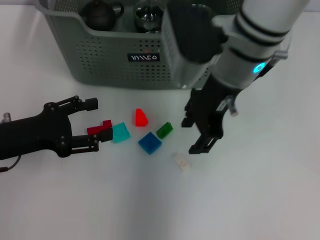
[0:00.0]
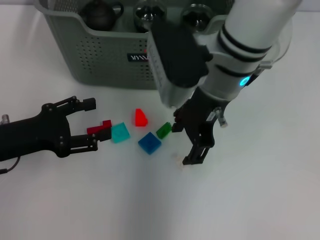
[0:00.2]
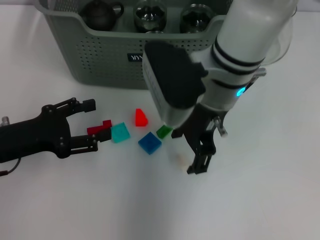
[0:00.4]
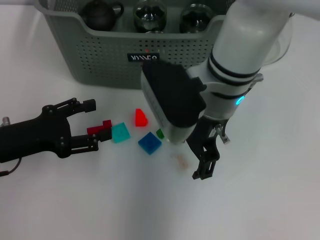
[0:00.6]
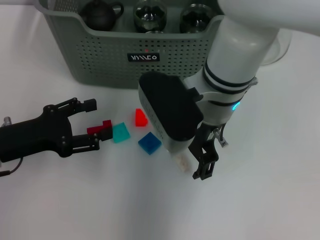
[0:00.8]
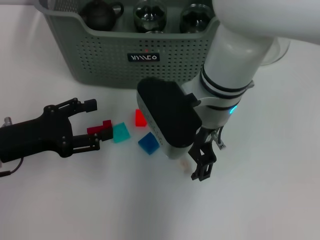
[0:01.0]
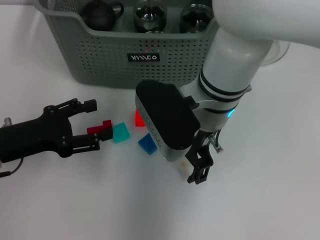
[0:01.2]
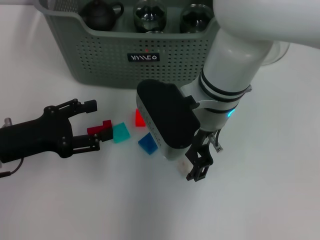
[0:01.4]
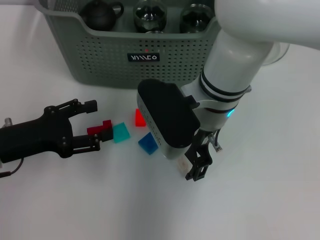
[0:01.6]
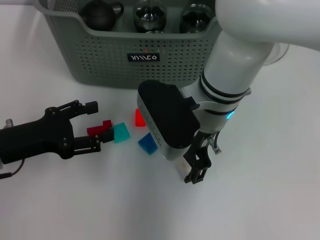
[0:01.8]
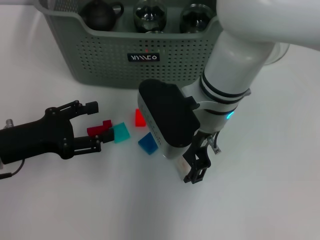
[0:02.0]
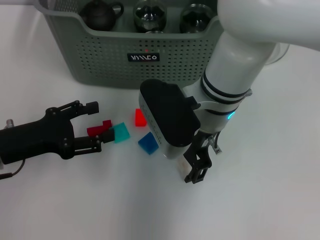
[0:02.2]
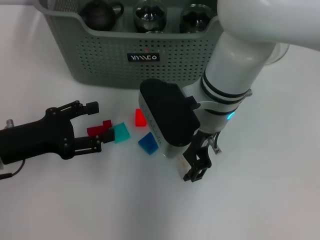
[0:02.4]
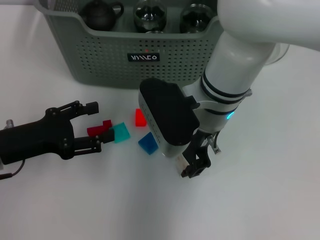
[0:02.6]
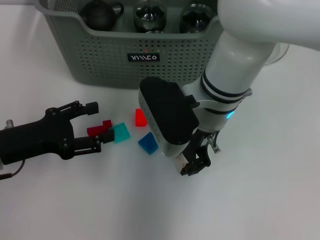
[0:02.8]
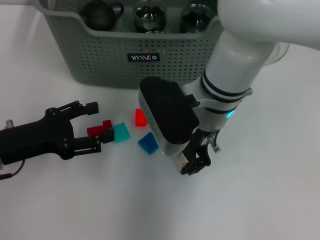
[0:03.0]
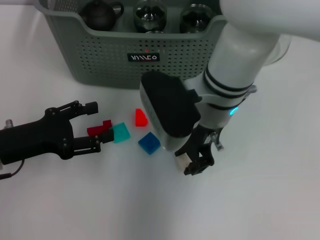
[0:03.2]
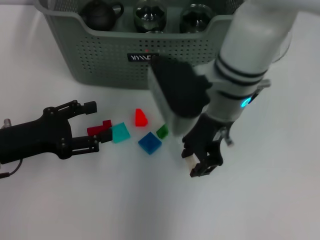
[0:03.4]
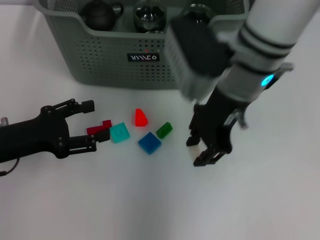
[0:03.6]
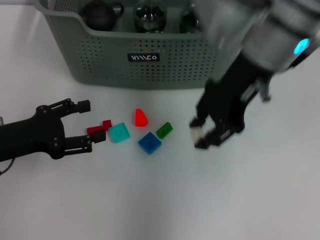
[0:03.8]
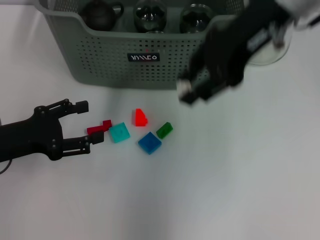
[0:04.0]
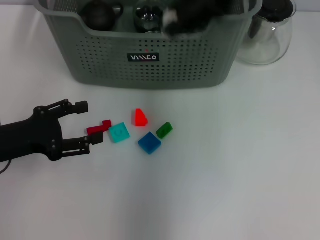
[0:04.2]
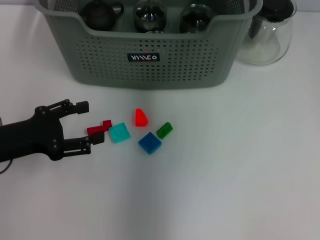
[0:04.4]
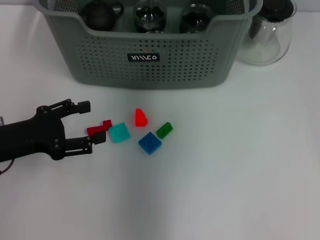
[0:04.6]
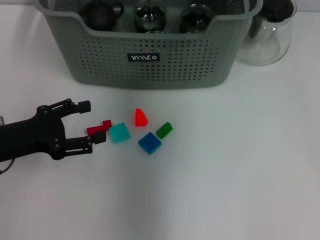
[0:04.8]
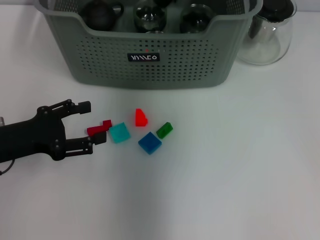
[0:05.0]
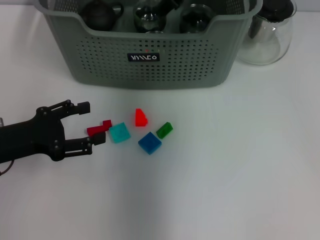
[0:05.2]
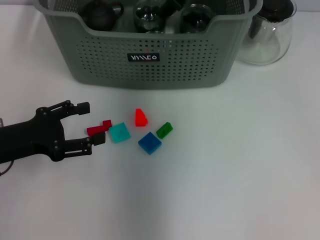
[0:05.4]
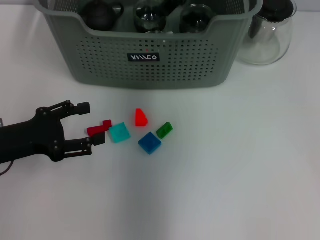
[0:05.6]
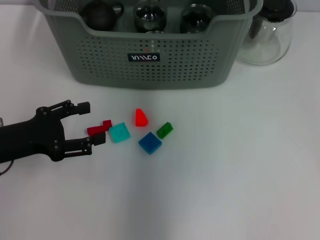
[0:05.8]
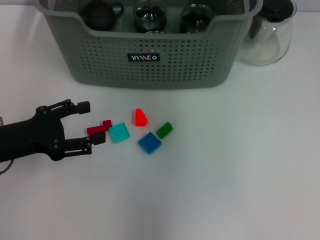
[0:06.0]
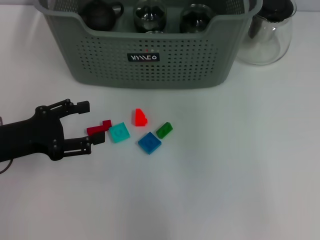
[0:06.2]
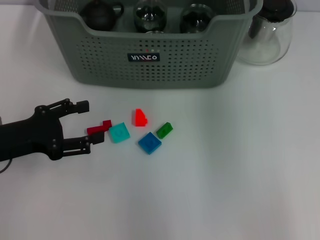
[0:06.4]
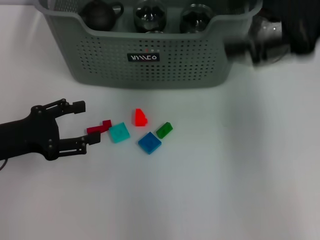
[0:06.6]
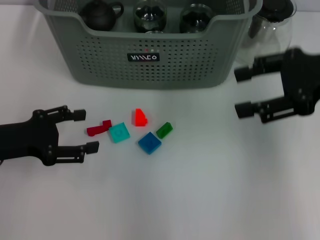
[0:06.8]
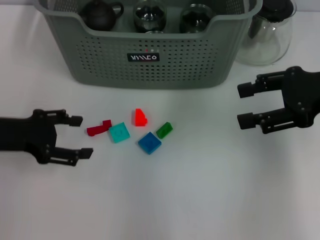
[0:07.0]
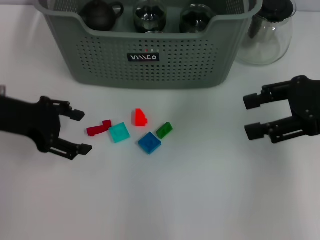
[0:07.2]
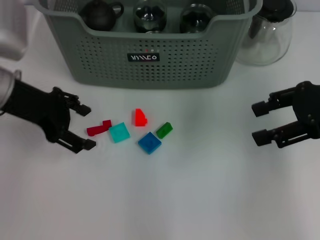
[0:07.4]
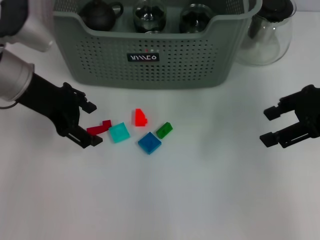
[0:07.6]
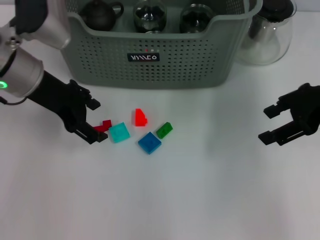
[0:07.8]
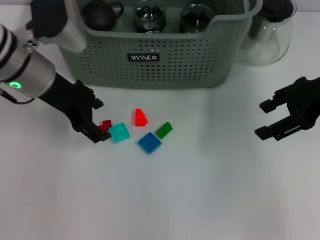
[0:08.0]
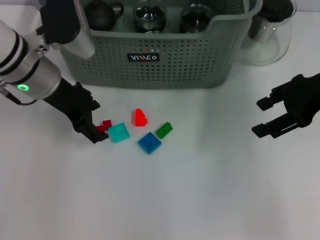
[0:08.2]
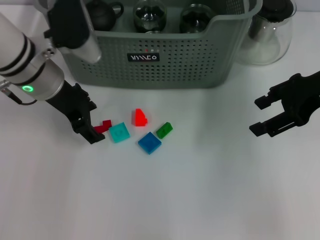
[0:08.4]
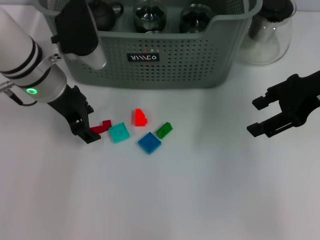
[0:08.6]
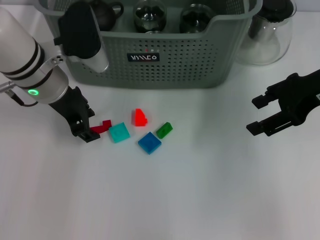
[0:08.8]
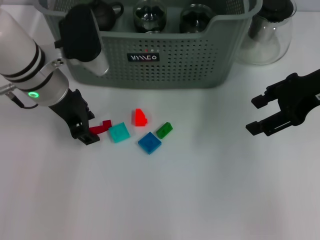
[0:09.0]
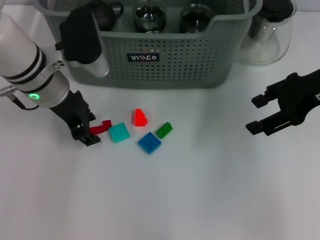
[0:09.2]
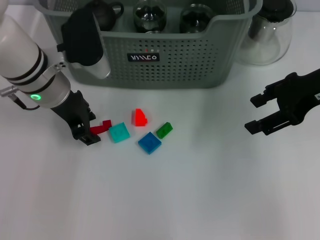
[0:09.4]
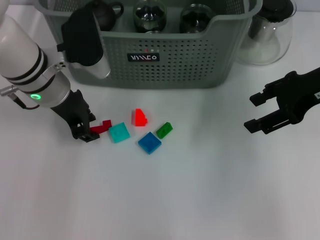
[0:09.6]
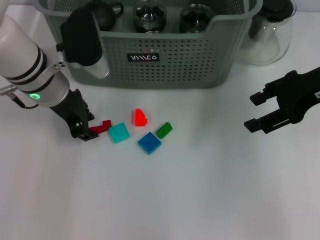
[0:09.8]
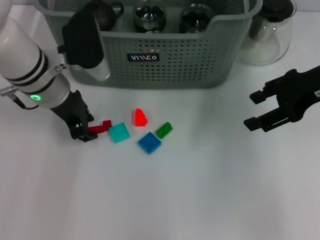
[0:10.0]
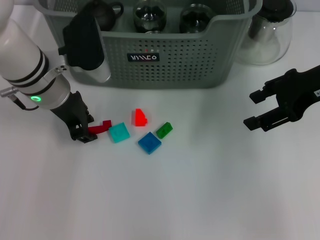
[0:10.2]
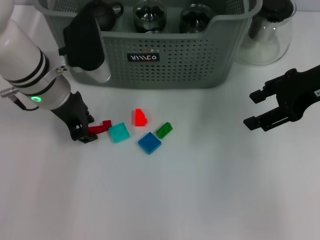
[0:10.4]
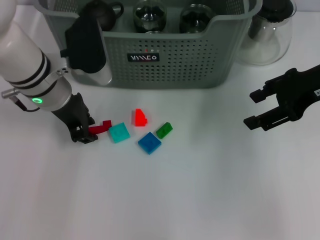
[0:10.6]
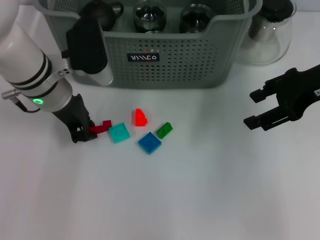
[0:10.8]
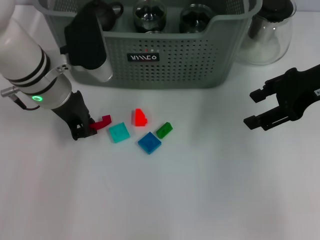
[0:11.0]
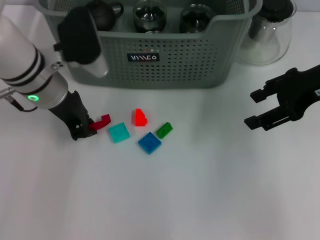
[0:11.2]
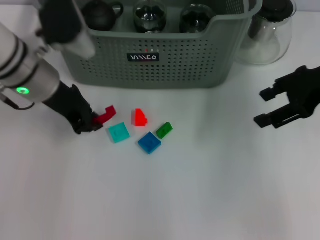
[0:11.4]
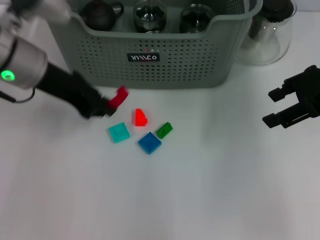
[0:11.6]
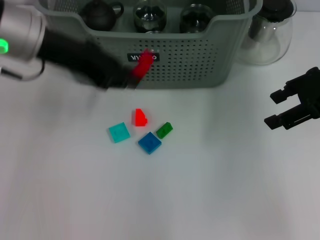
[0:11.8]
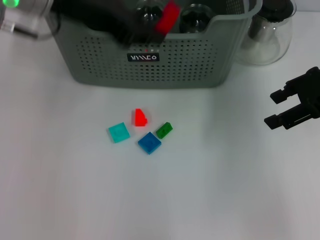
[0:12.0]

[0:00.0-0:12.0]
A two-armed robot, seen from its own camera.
Task of the whole recording: pick up the teacup on the table and place it into the storage bin, pick up the block on the table and place it into the storage bin.
Step, 0:00.0 to 0:02.8: Grasp the white block with right gripper.
Step, 0:03.0 to 0:05.4: Place the white block in the storage box with right gripper.
Step, 0:05.6 to 0:10.8: Grasp the red block with left gripper.
0:00.0 to 0:01.6: The right gripper goes some 5 cm downward.
0:01.6 to 0:03.0: The right gripper closes its fingers.
0:03.0 to 0:04.4: The right gripper travels upward by approximately 25 cm.
0:06.0 to 0:07.6: The right gripper travels to the right, downward and backward by about 25 cm, while the left gripper shifts approximately 15 cm forward, upward and to the right.
0:07.6 to 0:09.0: The left gripper changes place by roughly 5 cm.
0:09.0 to 0:10.4: Neither gripper changes place.
0:10.4 to 0:12.0: The left gripper travels upward by about 15 cm.

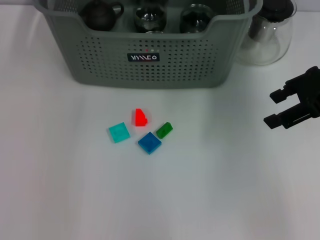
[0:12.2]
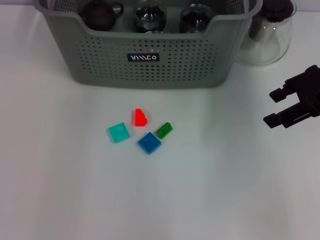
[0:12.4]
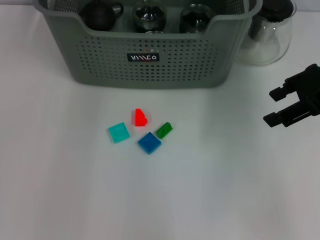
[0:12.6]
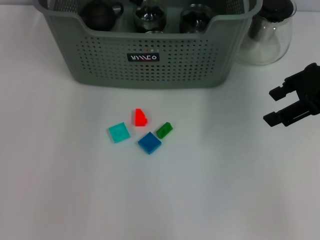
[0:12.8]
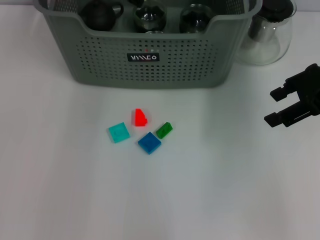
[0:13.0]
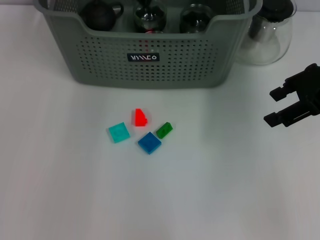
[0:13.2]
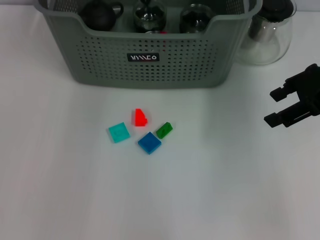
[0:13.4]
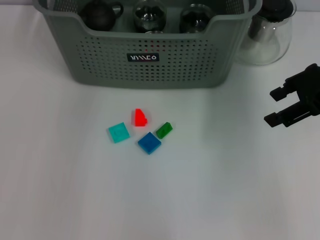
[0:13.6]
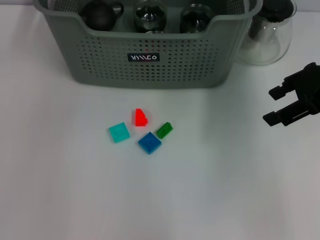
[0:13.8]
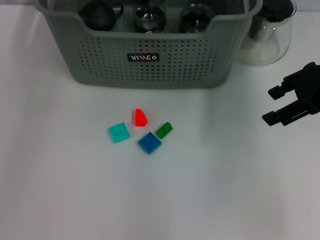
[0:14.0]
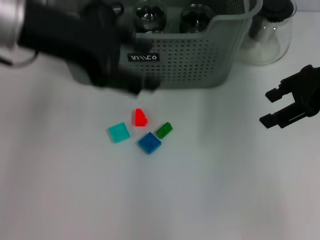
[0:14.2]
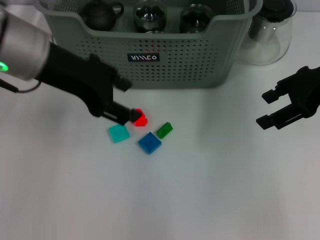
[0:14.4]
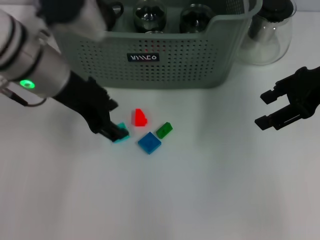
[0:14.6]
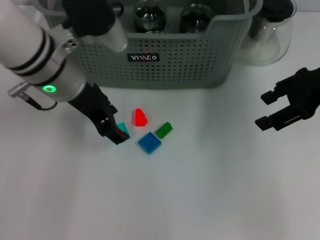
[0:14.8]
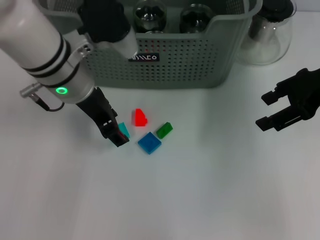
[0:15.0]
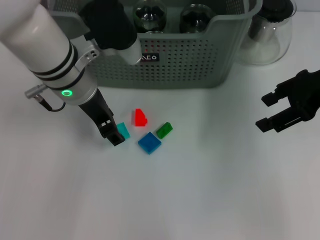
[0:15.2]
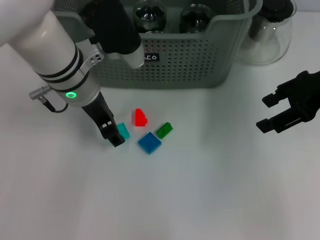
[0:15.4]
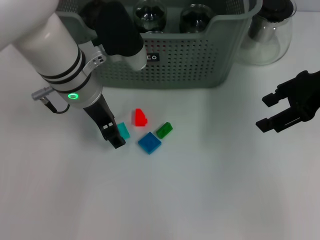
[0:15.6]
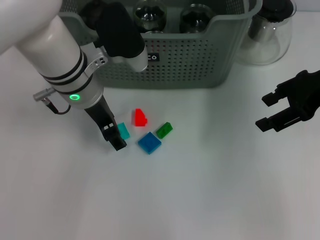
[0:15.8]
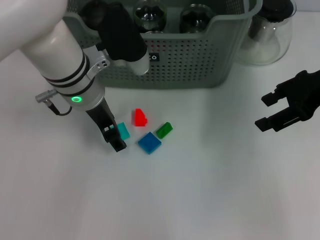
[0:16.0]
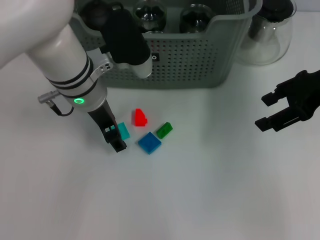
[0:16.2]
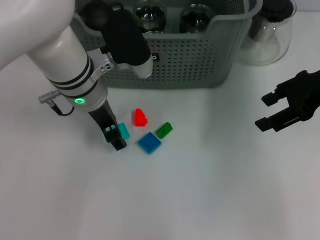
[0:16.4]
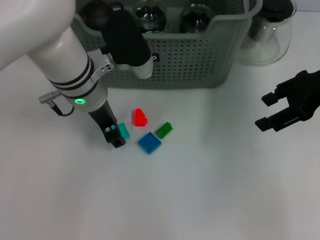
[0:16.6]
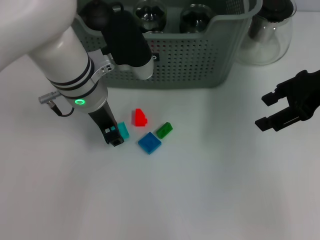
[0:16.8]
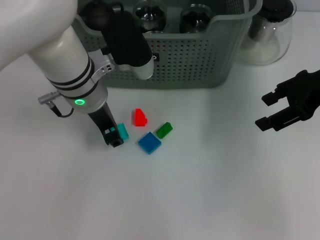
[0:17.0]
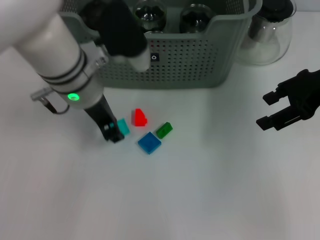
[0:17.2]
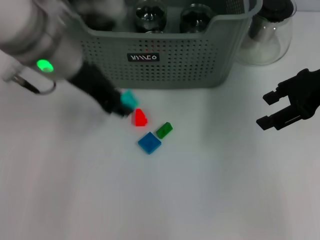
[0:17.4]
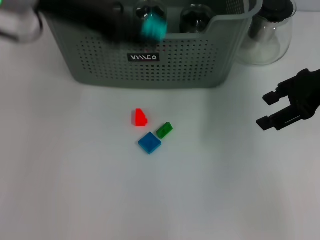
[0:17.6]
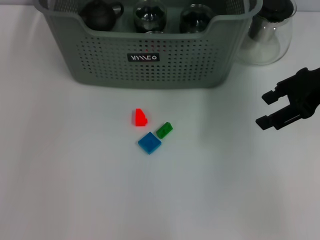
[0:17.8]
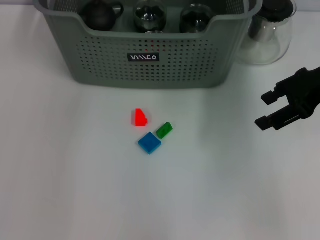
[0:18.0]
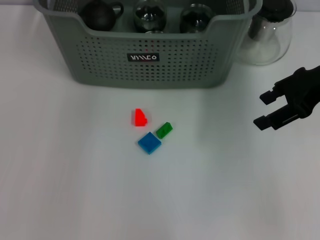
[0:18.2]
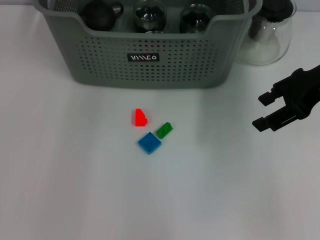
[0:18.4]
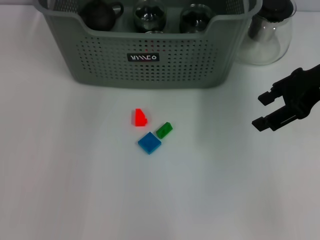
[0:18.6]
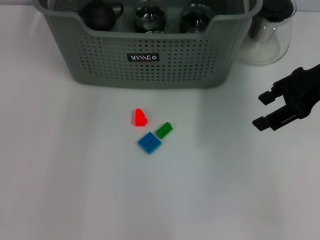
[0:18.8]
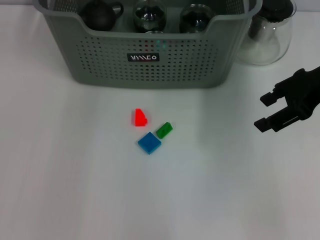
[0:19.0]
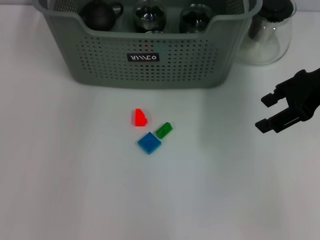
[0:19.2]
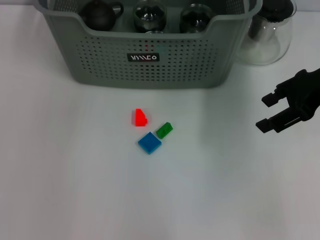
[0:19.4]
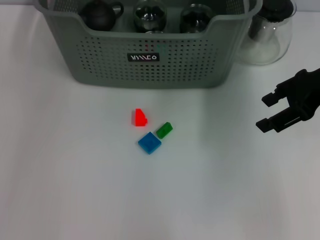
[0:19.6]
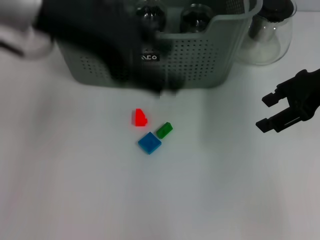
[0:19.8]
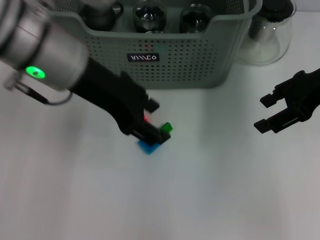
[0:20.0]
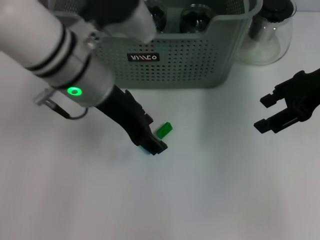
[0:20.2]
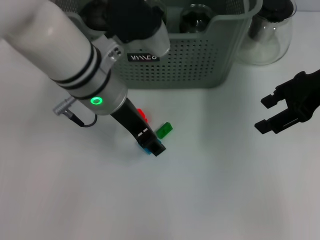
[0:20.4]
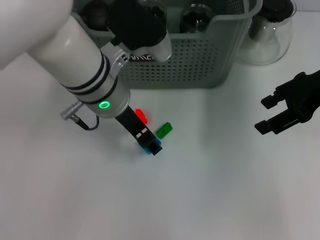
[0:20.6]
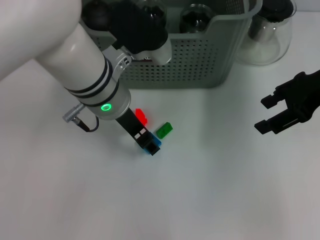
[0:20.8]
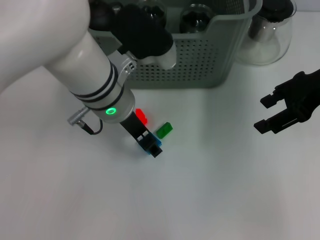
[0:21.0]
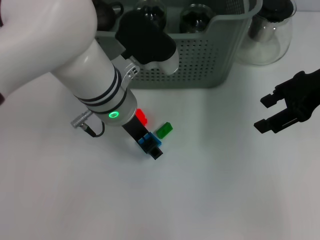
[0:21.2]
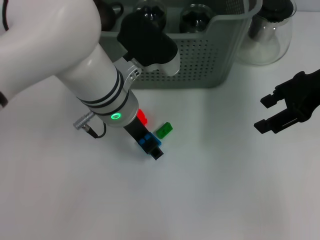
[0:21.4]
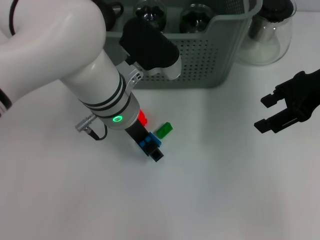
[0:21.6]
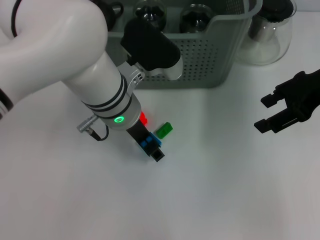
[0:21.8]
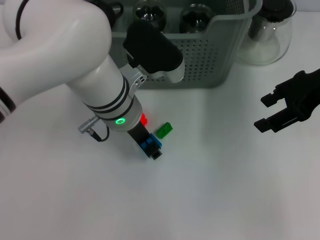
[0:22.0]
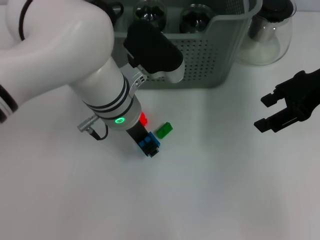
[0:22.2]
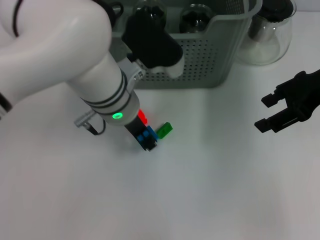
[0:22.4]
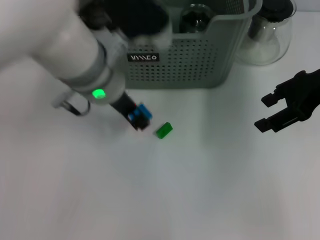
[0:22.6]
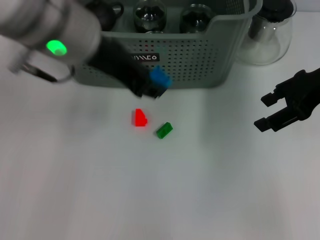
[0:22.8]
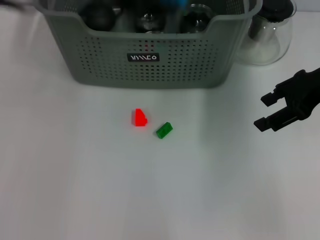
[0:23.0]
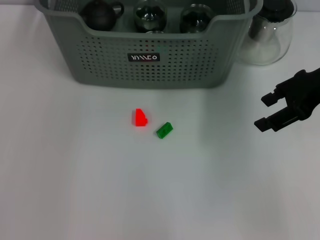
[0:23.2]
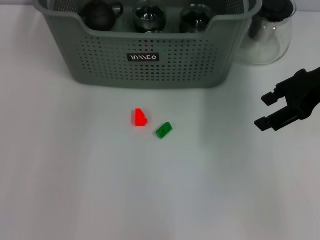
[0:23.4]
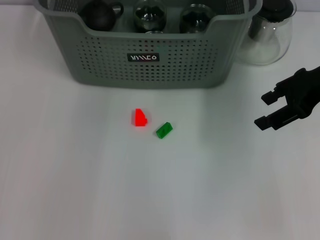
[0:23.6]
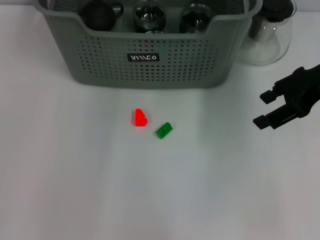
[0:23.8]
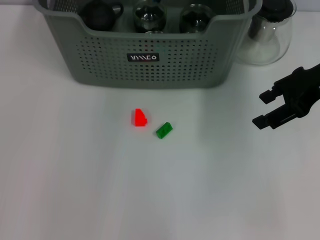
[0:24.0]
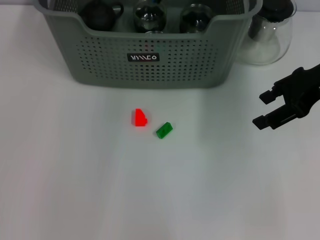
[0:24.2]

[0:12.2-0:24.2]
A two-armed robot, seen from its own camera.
Task of the whole recording: pick up the teacup on the table and place it into the storage bin, pick up the block on the table and place it into the storage bin.
Step, 0:13.4 to 0:16.8: Grasp the light blue block with left gripper.
Step, 0:17.0 to 0:19.0: Place the light blue block in the storage box with left gripper.
Step, 0:19.2 to 0:22.2: Grasp the dark blue block with left gripper.
0:13.8 to 0:15.2: The left gripper moves downward, about 15 cm.
0:15.2 to 0:16.6: The grippers move only a little.
0:16.6 to 0:18.2: The left gripper shifts some 20 cm upward and forward.
0:18.2 to 0:19.8: The left gripper is displaced backward by about 15 cm.
0:19.8 to 0:21.2: The left gripper travels downward and to the right by some 20 cm.
0:21.2 to 0:22.6: The left gripper closes.
0:22.6 to 0:24.2: The left gripper goes about 15 cm forward and upward.
